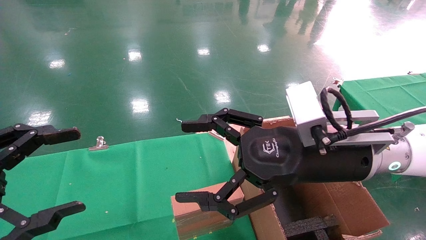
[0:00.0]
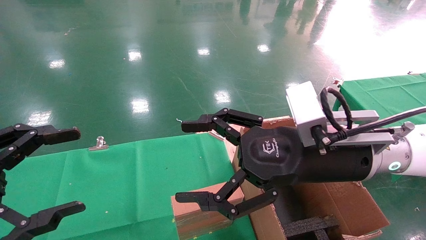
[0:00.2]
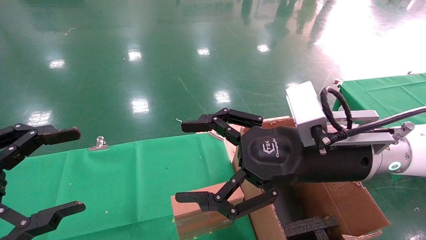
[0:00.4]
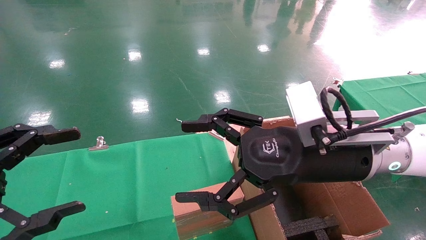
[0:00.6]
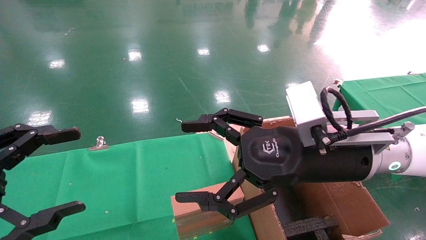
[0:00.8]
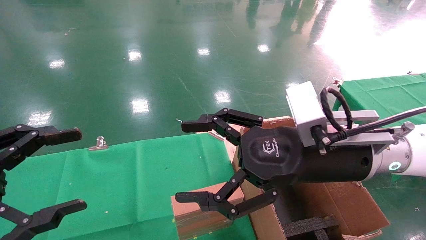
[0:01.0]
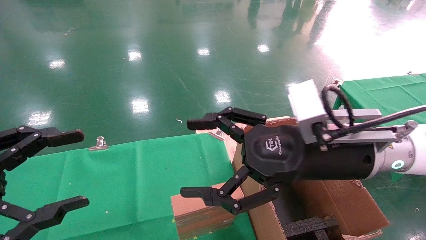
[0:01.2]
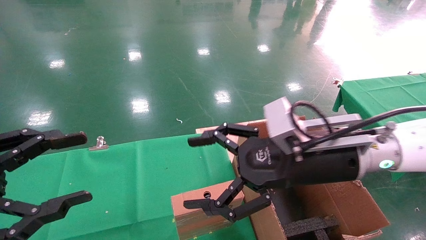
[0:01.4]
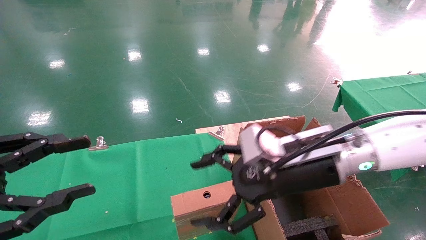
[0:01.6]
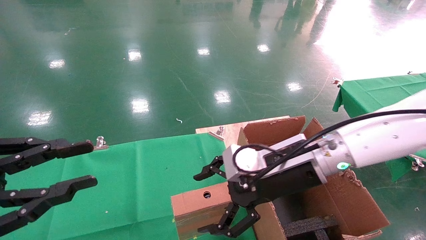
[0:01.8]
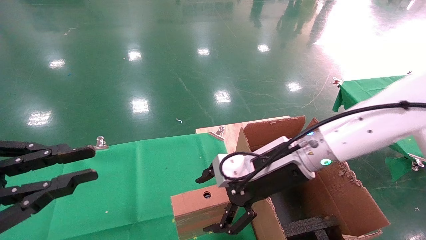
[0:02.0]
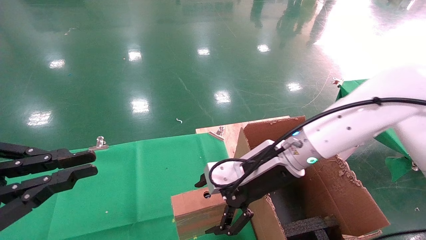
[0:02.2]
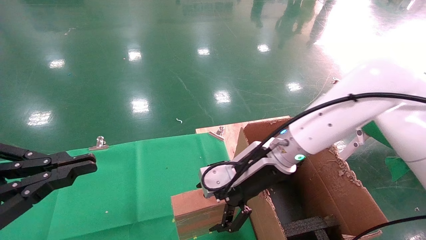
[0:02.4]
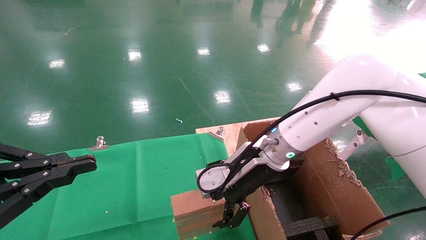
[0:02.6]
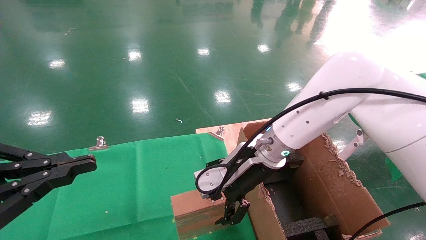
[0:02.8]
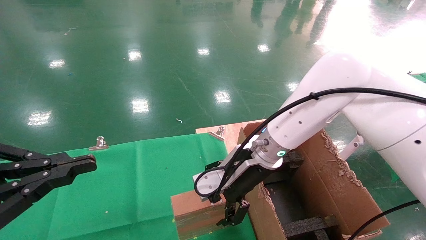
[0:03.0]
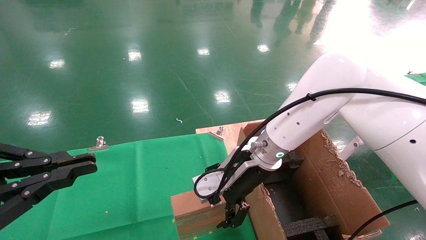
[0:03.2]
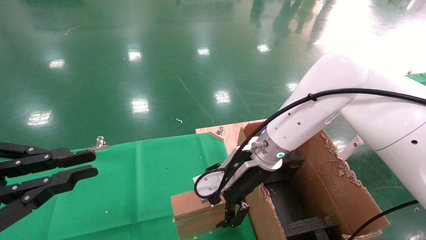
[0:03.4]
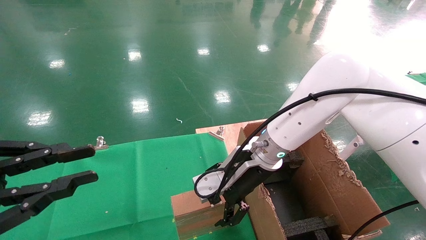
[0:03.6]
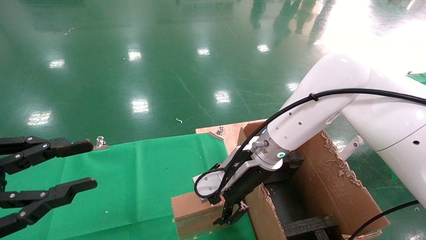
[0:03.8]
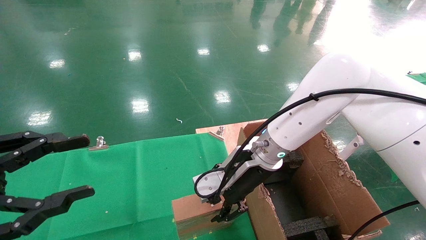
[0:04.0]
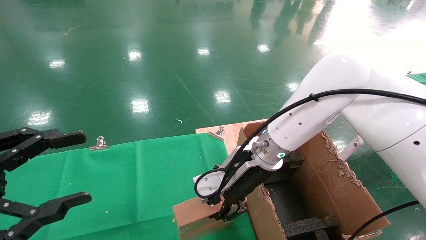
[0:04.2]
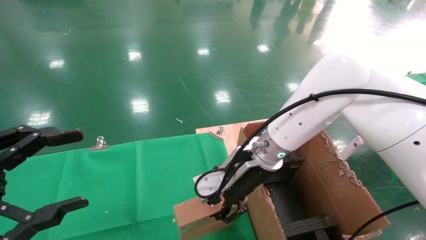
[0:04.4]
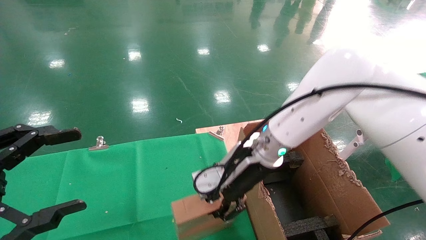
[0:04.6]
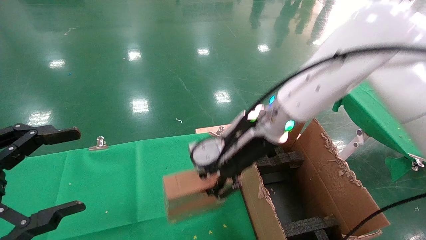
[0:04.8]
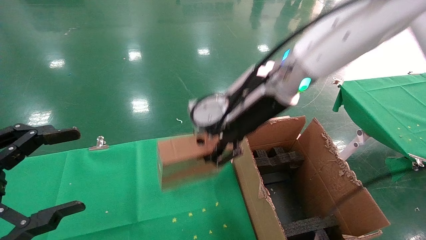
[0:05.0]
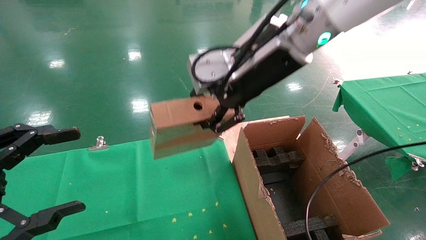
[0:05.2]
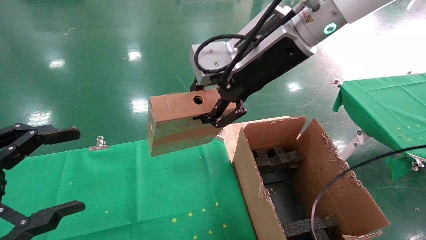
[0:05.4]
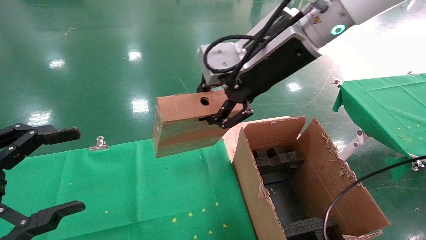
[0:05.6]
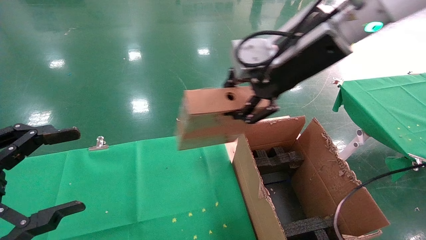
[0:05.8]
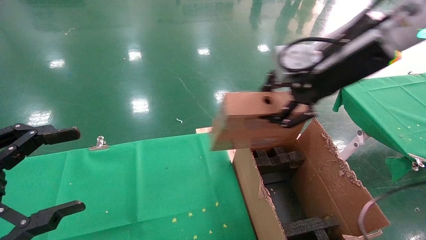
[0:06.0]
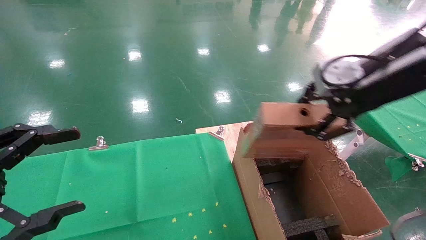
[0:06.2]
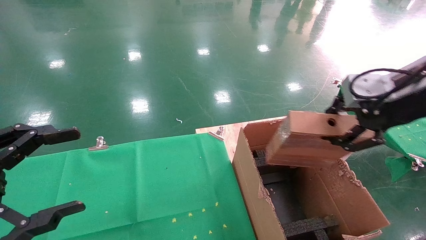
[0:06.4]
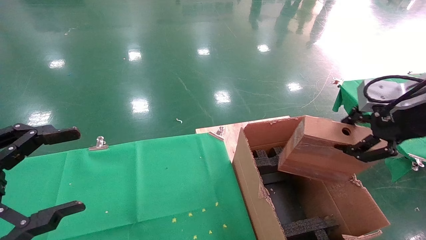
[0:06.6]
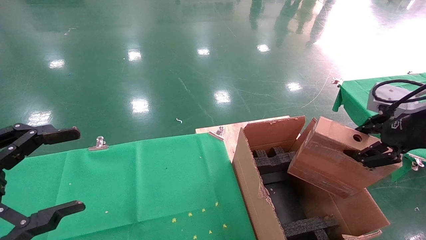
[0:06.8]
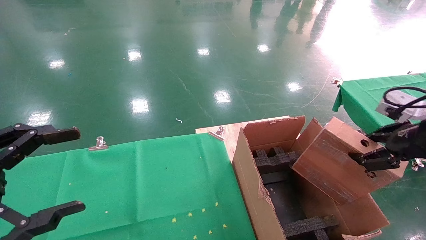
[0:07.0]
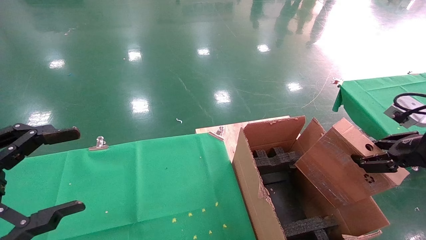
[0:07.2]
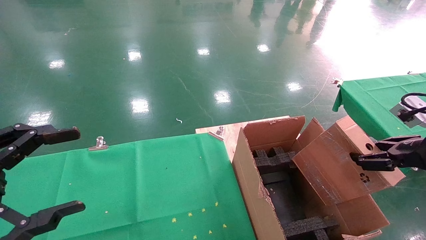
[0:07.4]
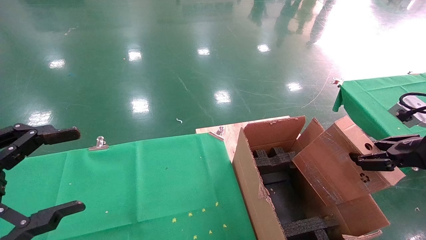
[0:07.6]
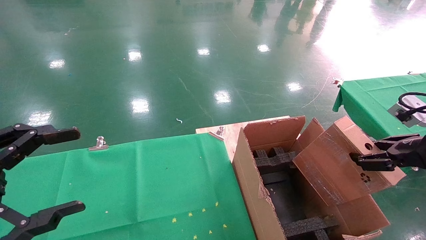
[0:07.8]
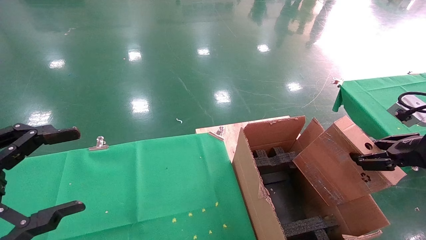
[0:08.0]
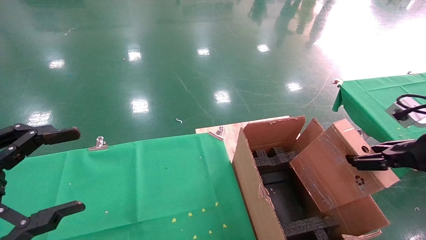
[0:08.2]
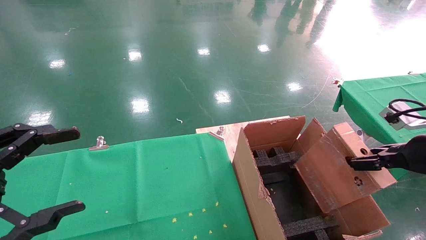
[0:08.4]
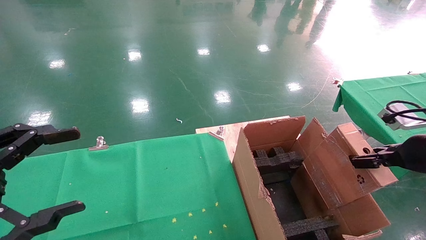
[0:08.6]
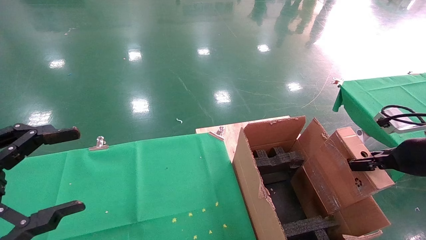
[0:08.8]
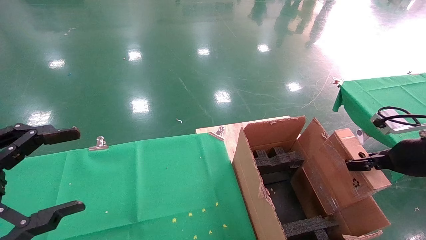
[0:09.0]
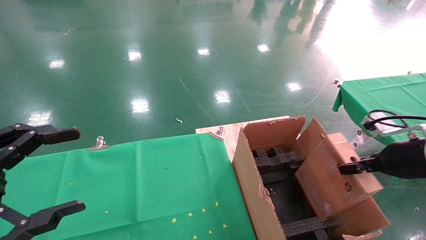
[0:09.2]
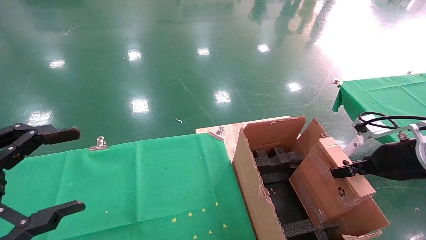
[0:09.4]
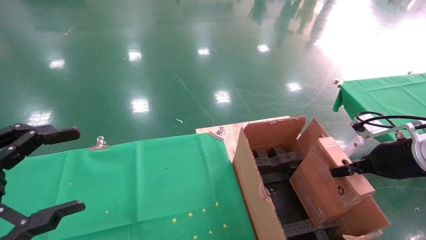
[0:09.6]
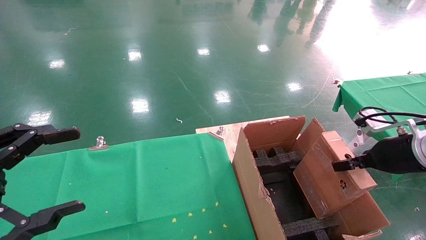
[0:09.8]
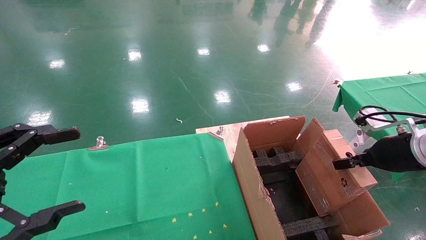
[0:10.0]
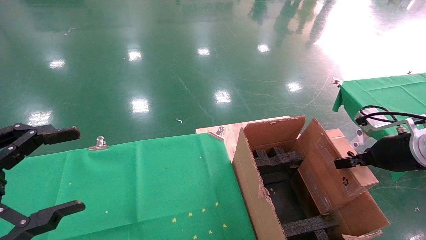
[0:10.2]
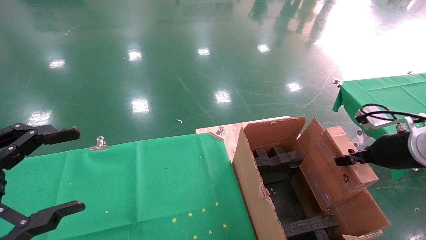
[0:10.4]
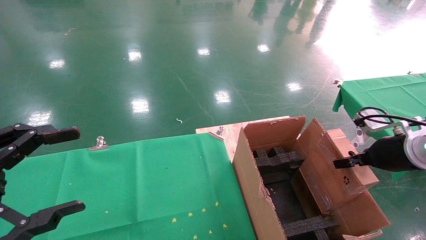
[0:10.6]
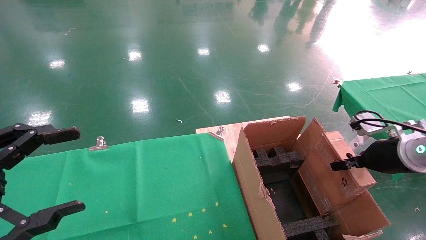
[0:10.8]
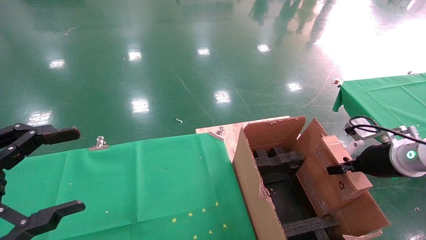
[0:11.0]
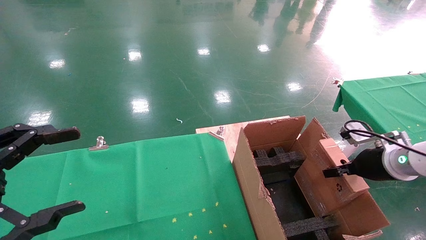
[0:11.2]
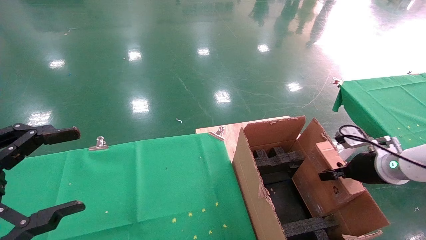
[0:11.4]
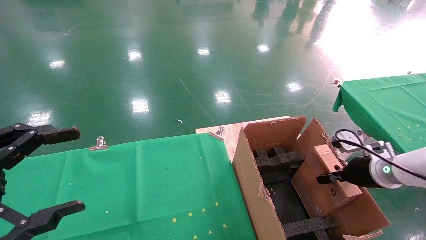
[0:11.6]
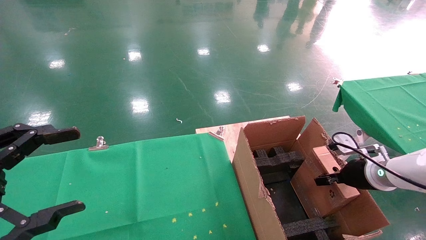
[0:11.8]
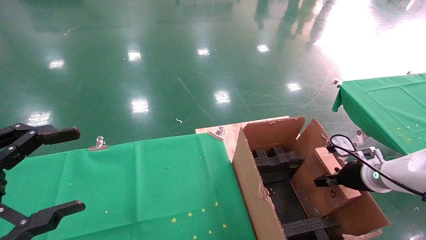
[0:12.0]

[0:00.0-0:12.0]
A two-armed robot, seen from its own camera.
Task of the whole recording: using a robotic arm to pick up a cardboard box and palace it the carton.
Step, 0:01.8 to 0:04.6: Pick up the mouse and the power cord paper box.
0:00.0 to 0:01.6: The right gripper ends up about 5 cm from where it was.
0:01.6 to 0:03.0: The left gripper closes. Meanwhile the right gripper moves forward and to the left, approximately 10 cm.
0:03.0 to 0:04.4: The right gripper closes its fingers; the left gripper opens its fingers.
0:04.4 to 0:06.0: The right gripper travels upward and to the right by roughly 25 cm.
0:06.0 to 0:07.6: The right gripper shifts approximately 25 cm to the right, downward and backward.
0:07.6 to 0:09.0: The right gripper is displaced forward by some 5 cm.
0:09.0 to 0:10.4: There are only small adjustments of the grippers.
0:10.4 to 0:12.0: The right gripper heads downward and forward, covering approximately 10 cm.

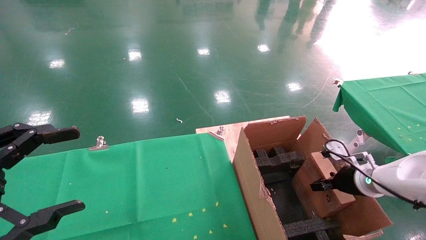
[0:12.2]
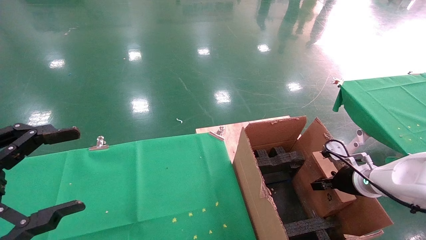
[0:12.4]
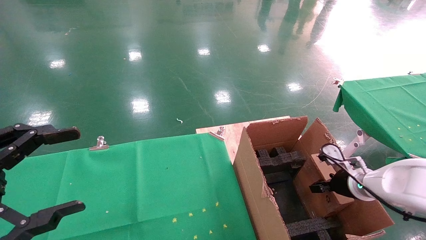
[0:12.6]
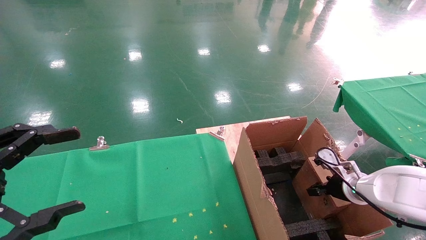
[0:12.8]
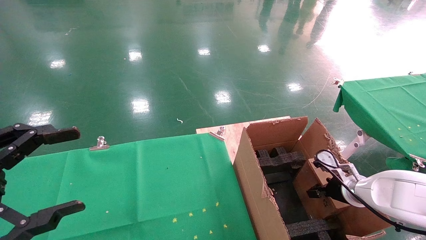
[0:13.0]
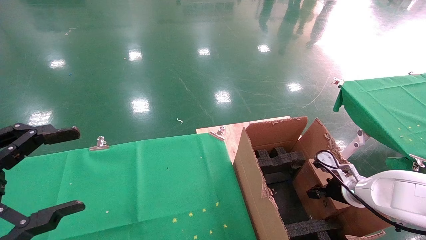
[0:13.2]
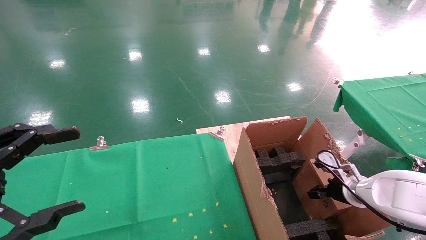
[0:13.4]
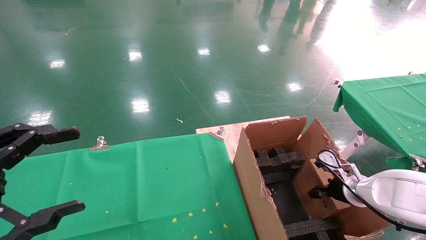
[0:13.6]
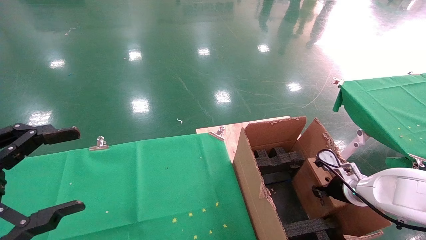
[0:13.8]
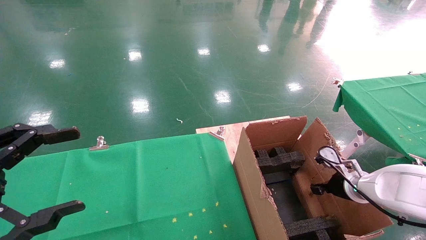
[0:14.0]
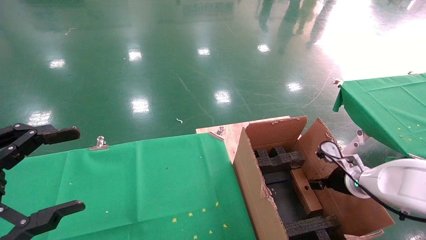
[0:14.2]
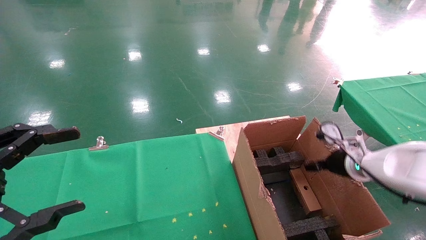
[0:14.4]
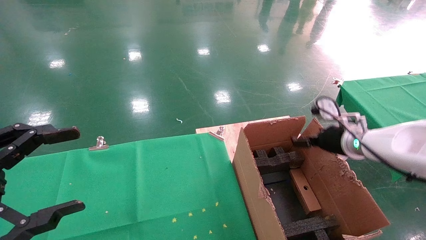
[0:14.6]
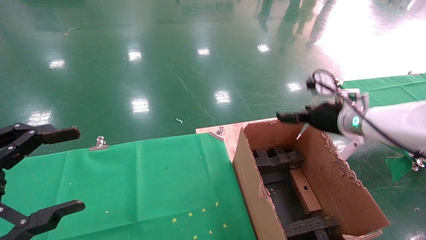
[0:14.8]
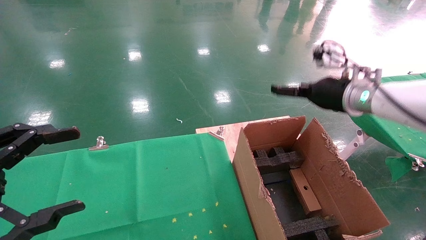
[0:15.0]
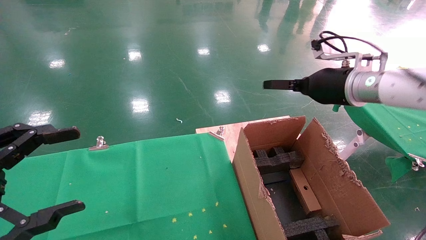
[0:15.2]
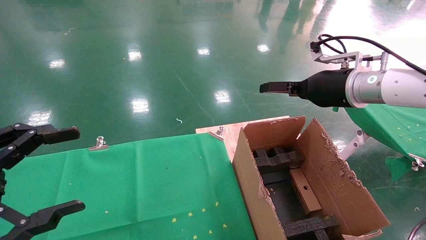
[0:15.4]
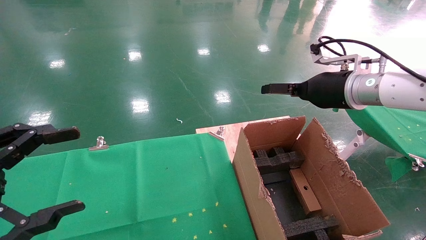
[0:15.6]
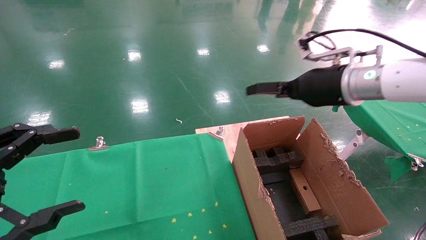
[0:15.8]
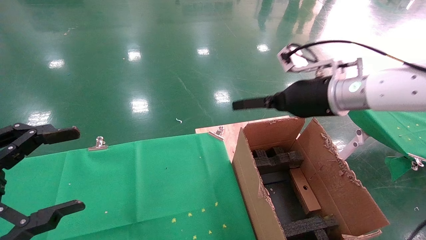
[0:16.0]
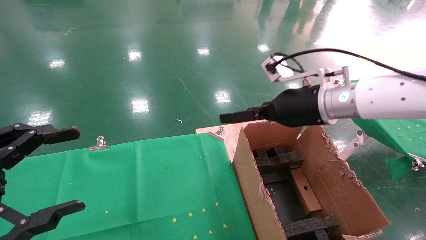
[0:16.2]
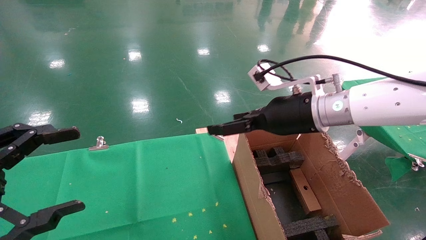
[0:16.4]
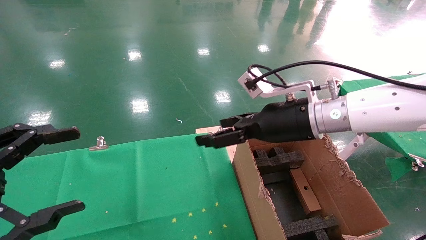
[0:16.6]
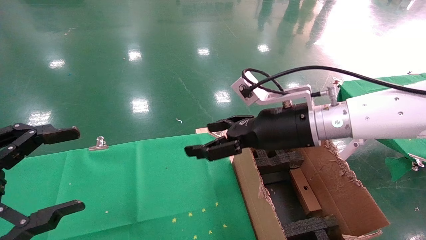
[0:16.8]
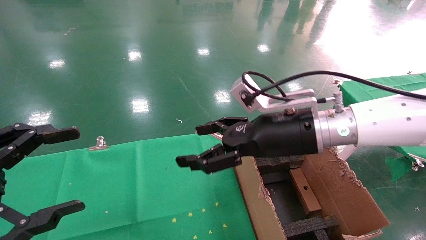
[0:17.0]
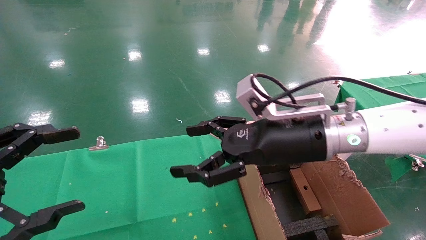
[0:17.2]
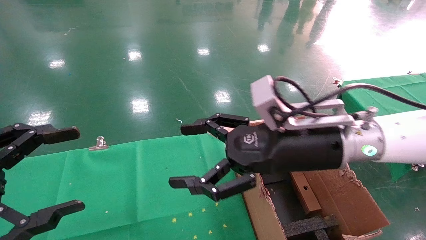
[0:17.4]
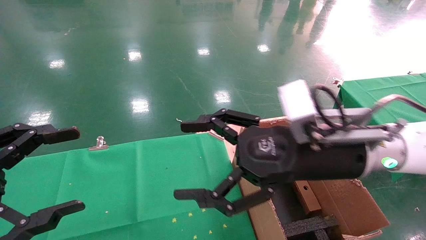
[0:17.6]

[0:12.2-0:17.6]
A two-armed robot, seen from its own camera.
Task of the whole recording: using a robotic arm to pick up a cardboard box and palace it the carton.
Step, 0:12.2 to 0:14.2: Place the mouse and the power cord paper box into the container.
0:12.2 to 0:13.6: The grippers stay close to where they were, moving slightly.
0:13.6 to 0:15.0: The right gripper shifts approximately 20 cm upward, and opens its fingers.
0:15.0 to 0:16.2: The right gripper heads to the left, covering about 10 cm.
0:16.2 to 0:17.6: The right gripper moves backward, some 10 cm.
